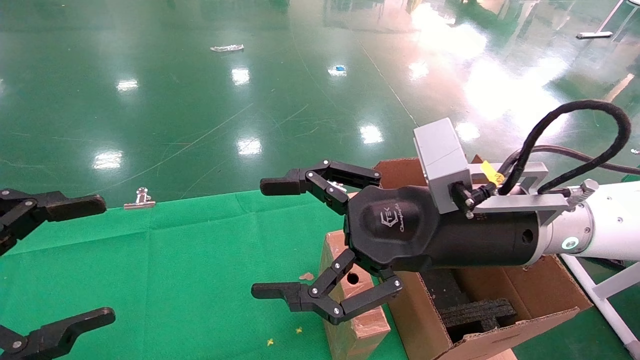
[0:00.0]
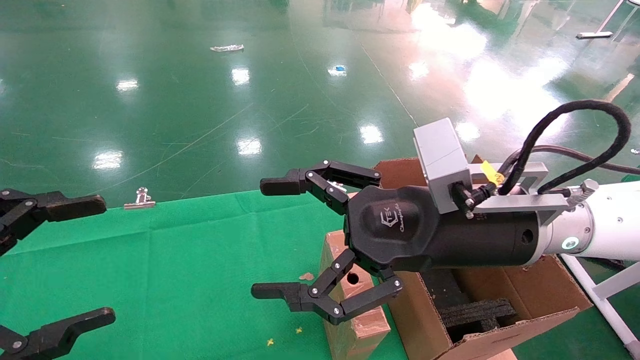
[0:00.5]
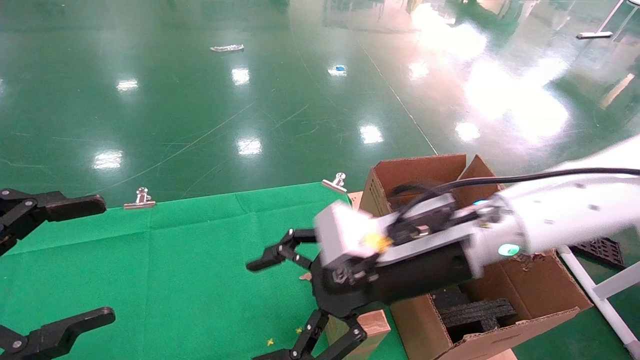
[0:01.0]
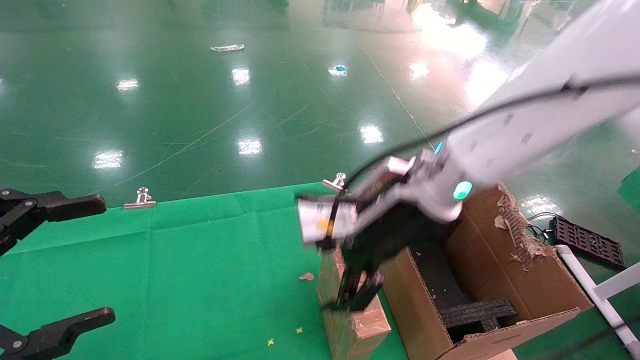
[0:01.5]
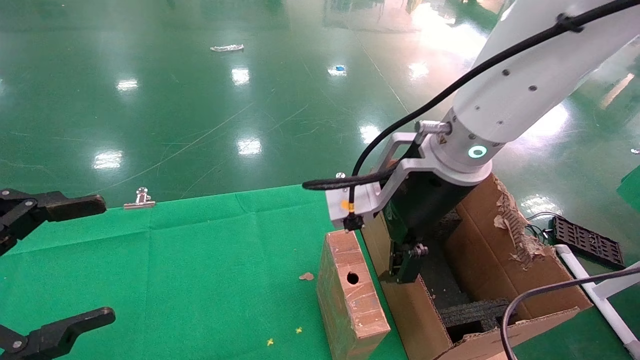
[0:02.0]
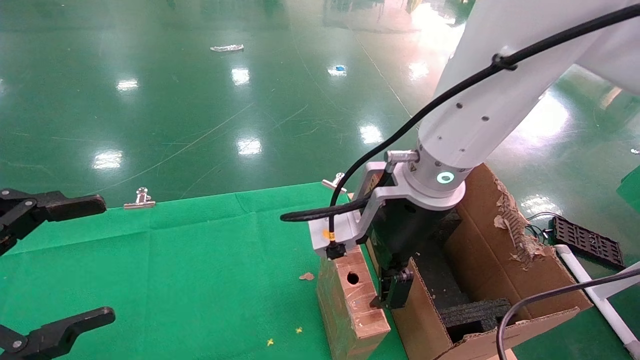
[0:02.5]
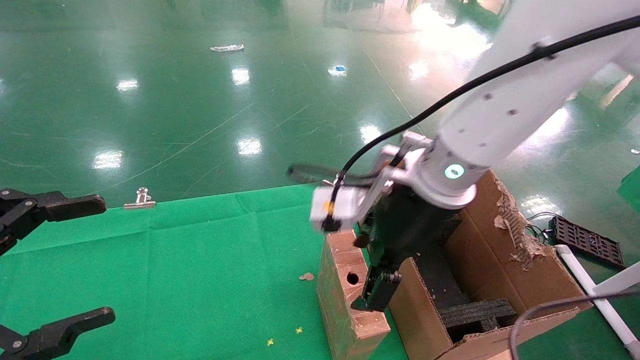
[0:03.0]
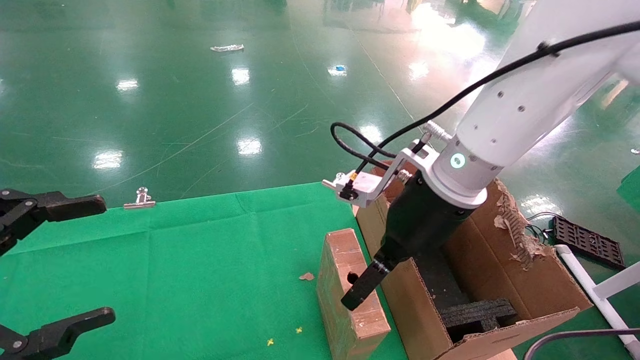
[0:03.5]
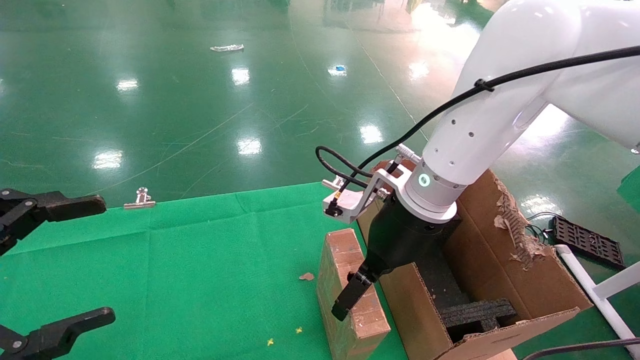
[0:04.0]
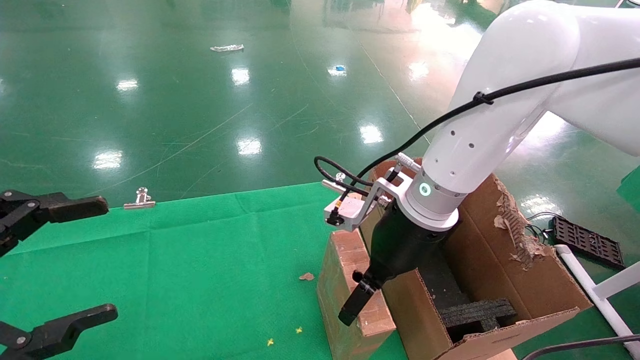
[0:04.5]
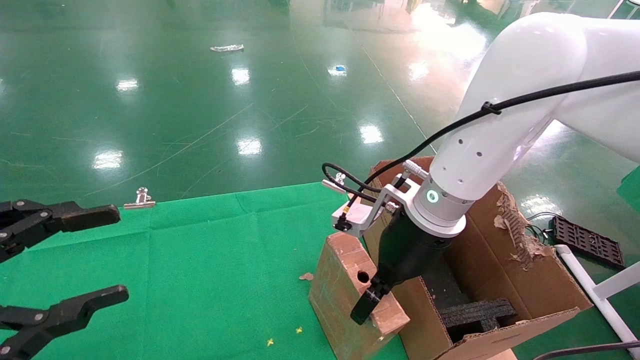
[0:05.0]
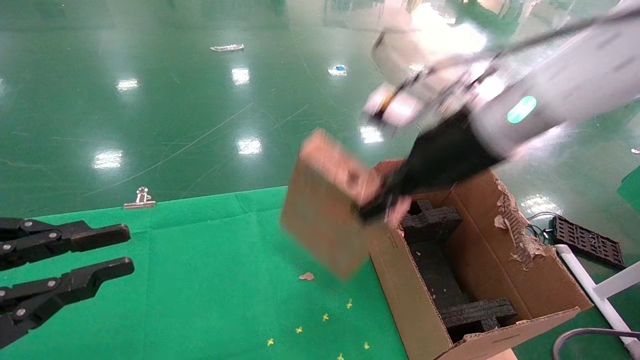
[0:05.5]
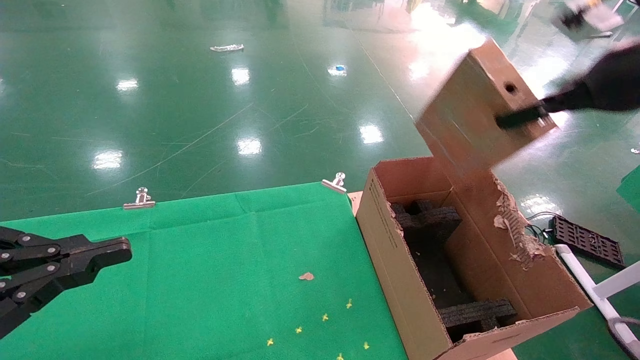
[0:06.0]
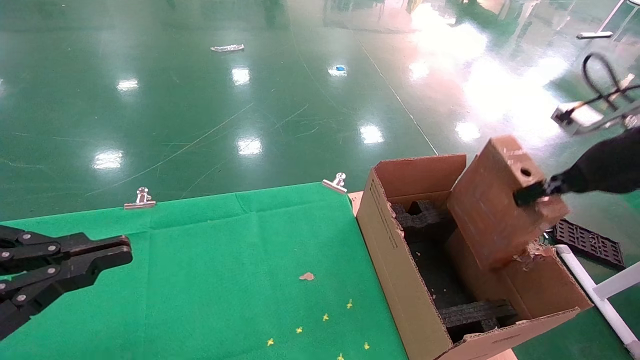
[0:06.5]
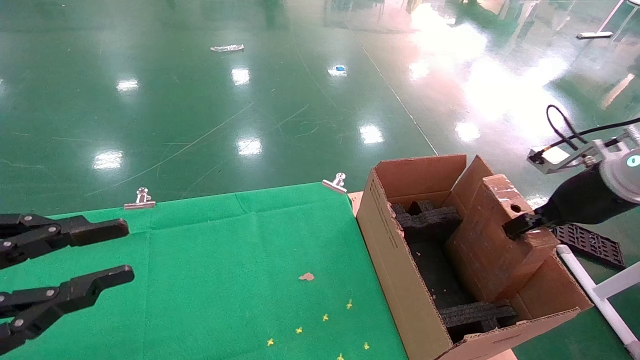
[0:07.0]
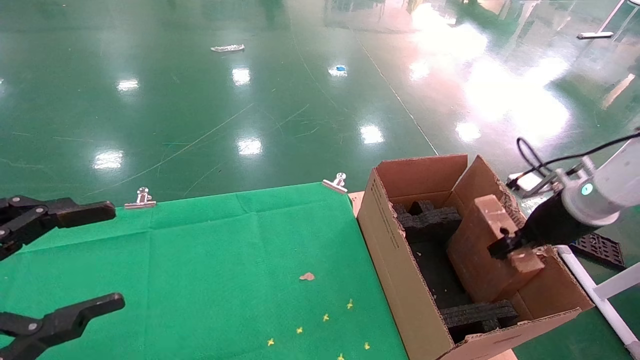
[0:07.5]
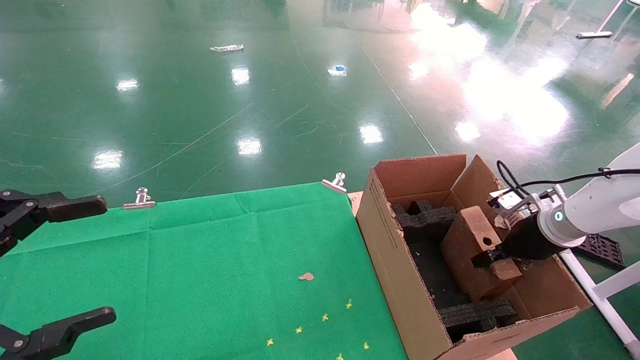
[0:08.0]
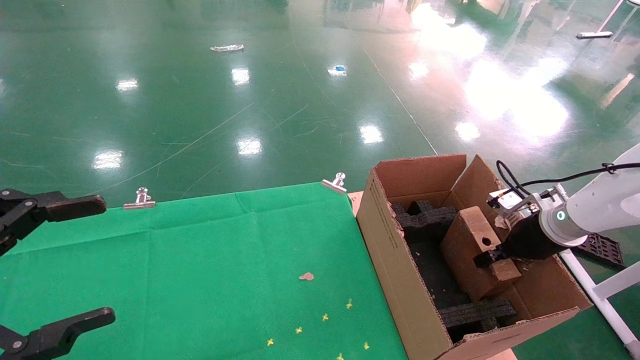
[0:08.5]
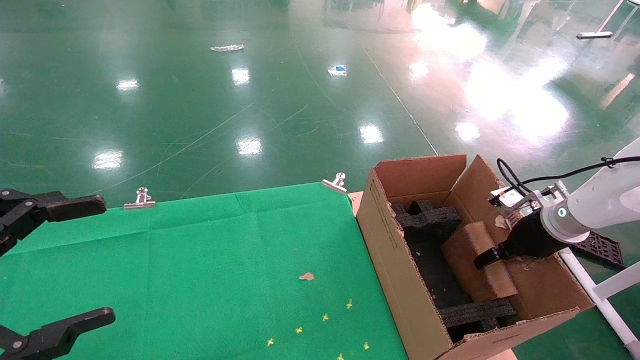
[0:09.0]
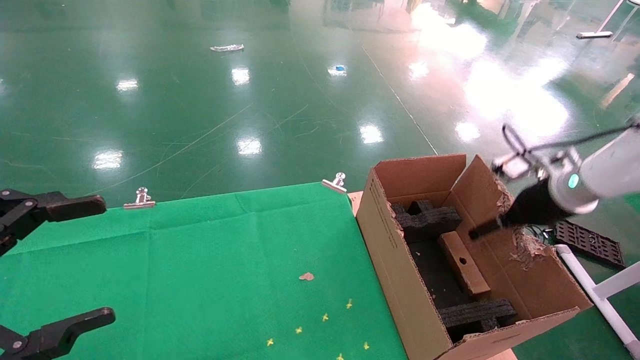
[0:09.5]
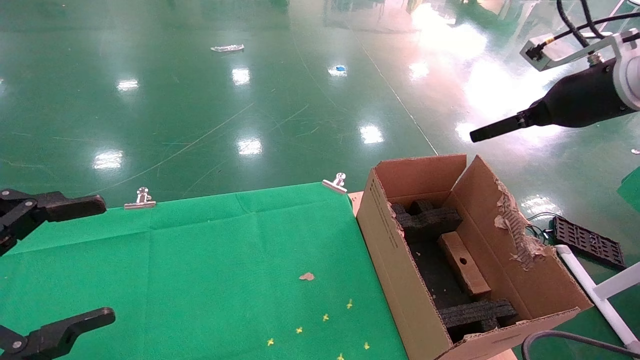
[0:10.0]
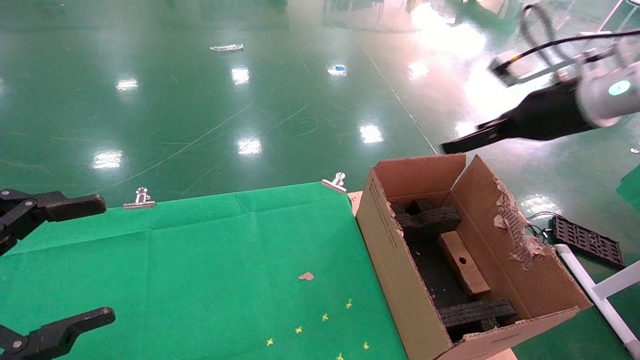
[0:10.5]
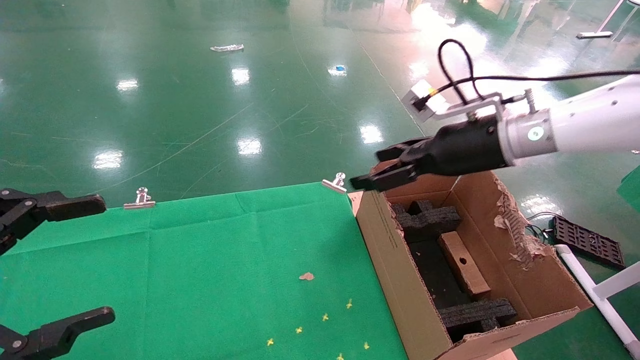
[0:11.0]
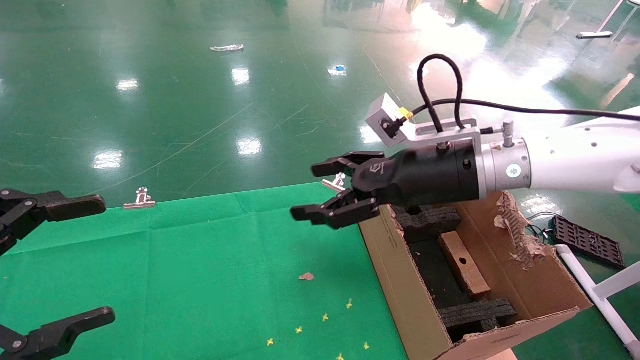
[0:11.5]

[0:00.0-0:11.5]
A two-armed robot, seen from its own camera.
Task of the whole recording: using a robotic arm to pick up a cardboard box and palace it the carton.
Step, 0:01.0 to 0:05.0: Pick up the mouse and the power cord paper box.
Step, 0:05.5 to 0:09.5: Place the mouse and the power cord paper box into the container.
0:00.0 to 0:02.0: The right gripper moves forward and upward, roughly 10 cm.
0:02.0 to 0:04.0: The right gripper is displaced downward by about 5 cm.
0:04.0 to 0:06.0: The left gripper closes its fingers. Meanwhile the right gripper shifts about 25 cm to the right and upward, and closes up.
0:06.0 to 0:07.5: The right gripper is displaced downward and forward by approximately 20 cm. The left gripper opens its fingers.
0:07.5 to 0:09.5: The right gripper opens. Meanwhile the left gripper opens.
0:09.5 to 0:11.5: The right gripper moves to the left, approximately 20 cm.

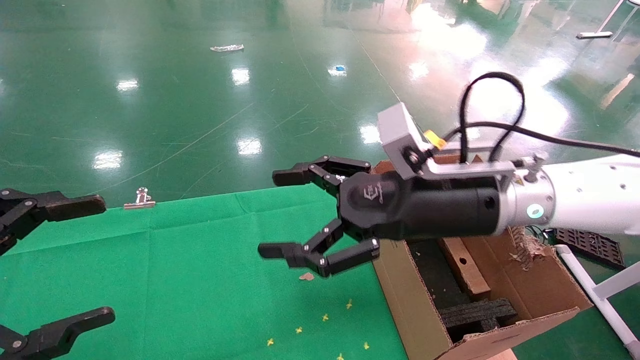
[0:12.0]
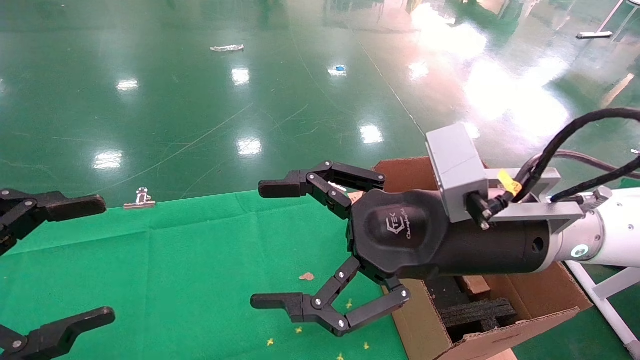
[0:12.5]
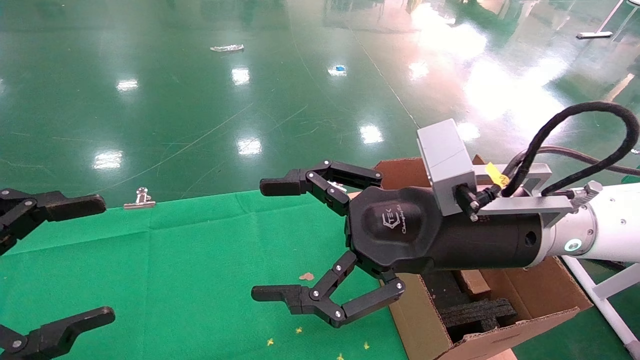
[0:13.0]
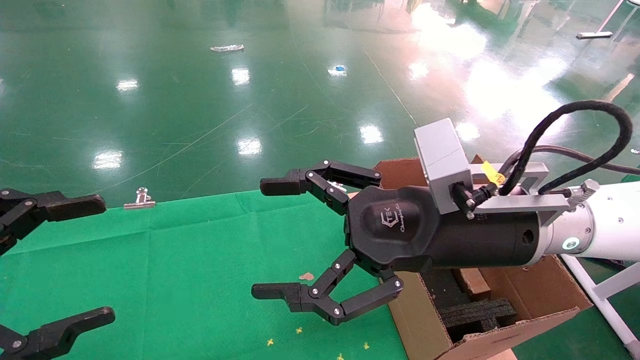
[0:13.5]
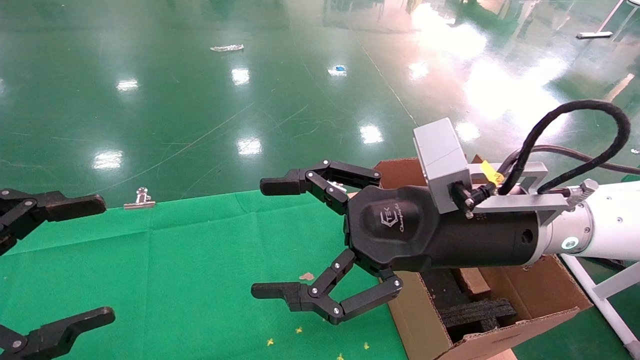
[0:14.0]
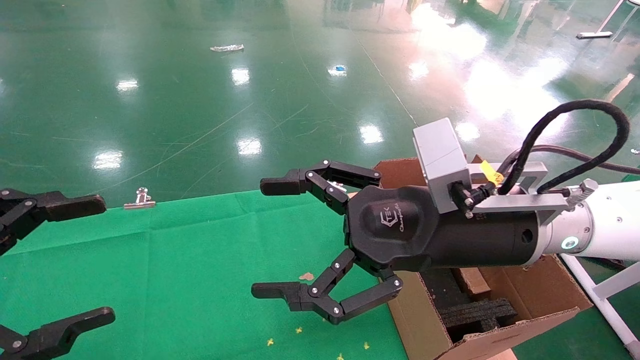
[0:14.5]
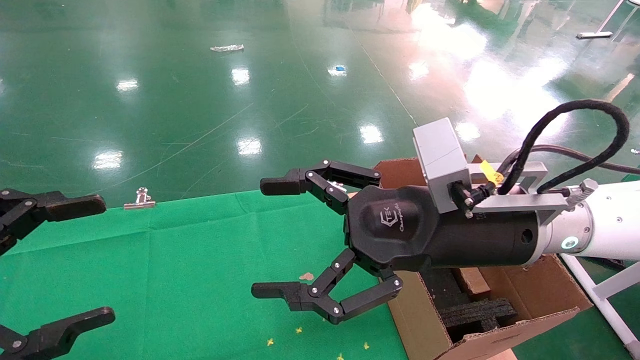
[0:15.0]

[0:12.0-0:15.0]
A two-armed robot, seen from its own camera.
Task of the whole recording: using a robotic arm to pick up a cardboard box and palace it the carton.
0:12.0 to 0:13.5: The grippers move only a little.
0:13.5 to 0:15.0: Neither gripper changes place.
